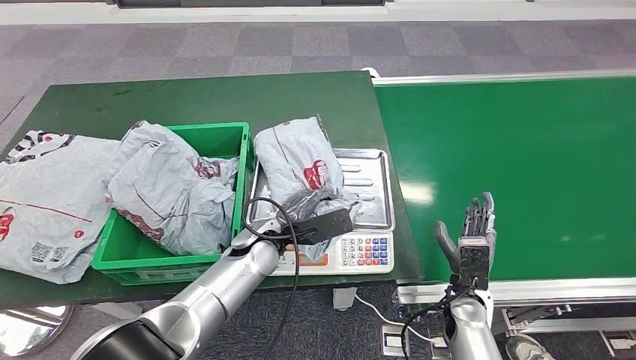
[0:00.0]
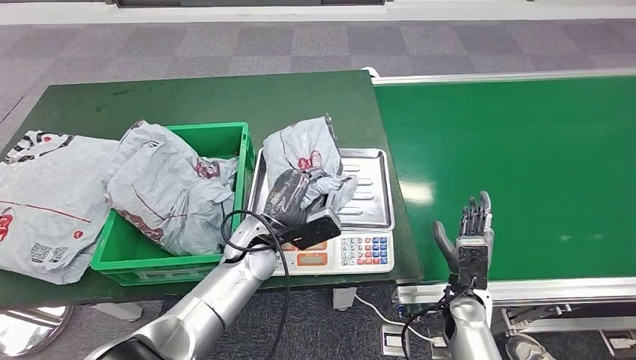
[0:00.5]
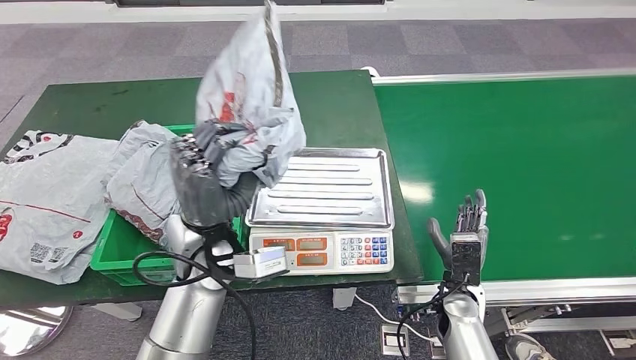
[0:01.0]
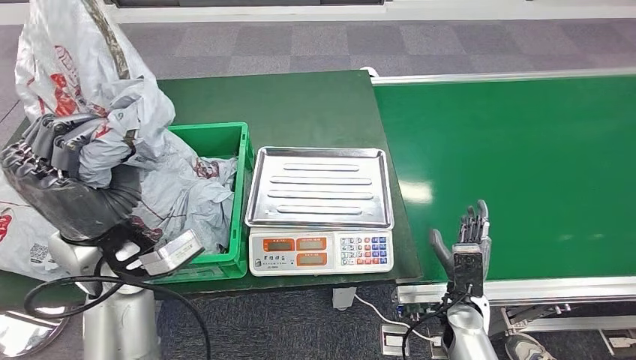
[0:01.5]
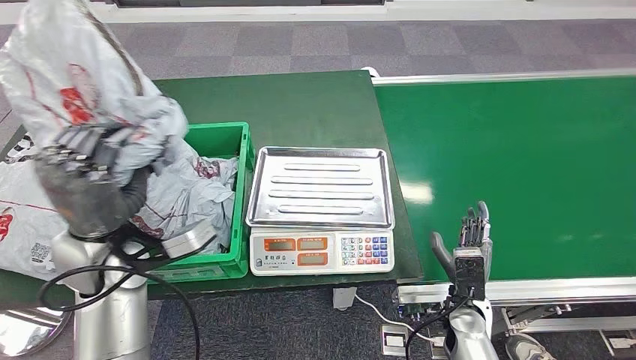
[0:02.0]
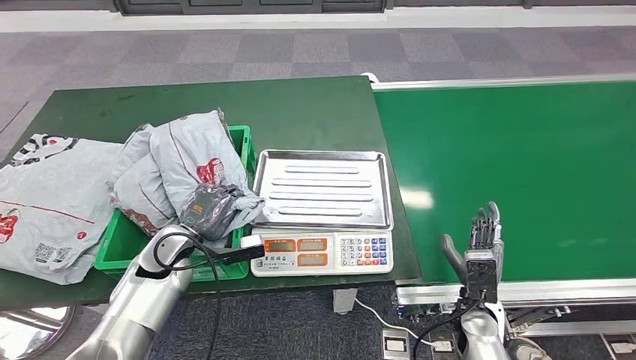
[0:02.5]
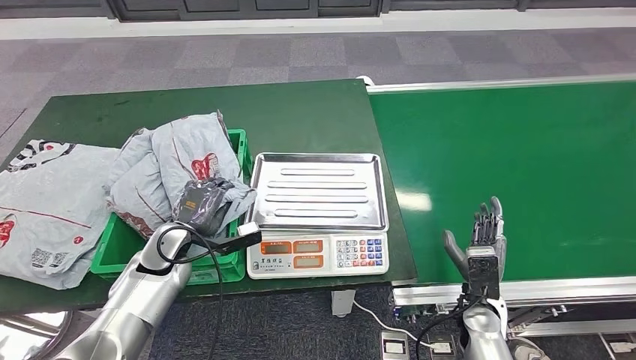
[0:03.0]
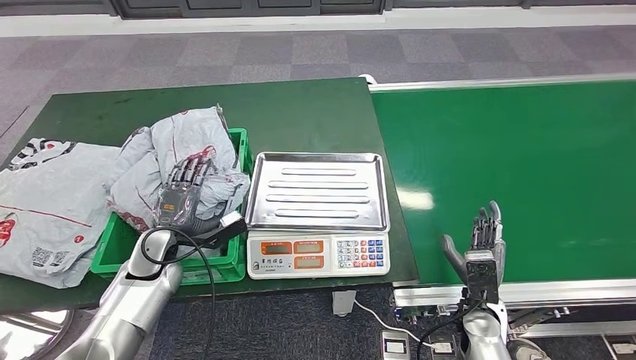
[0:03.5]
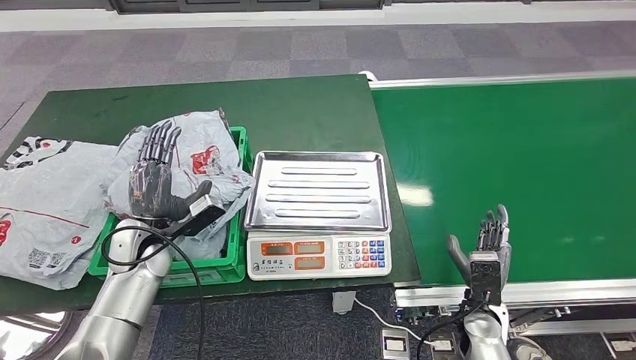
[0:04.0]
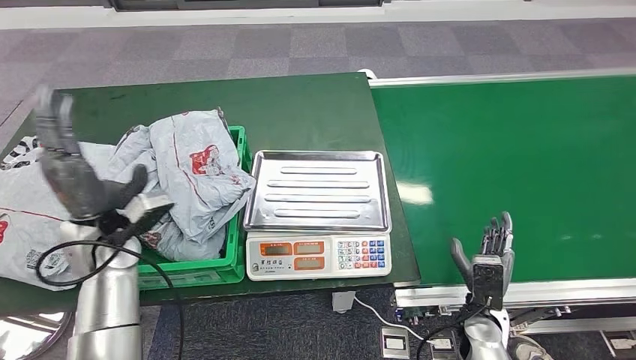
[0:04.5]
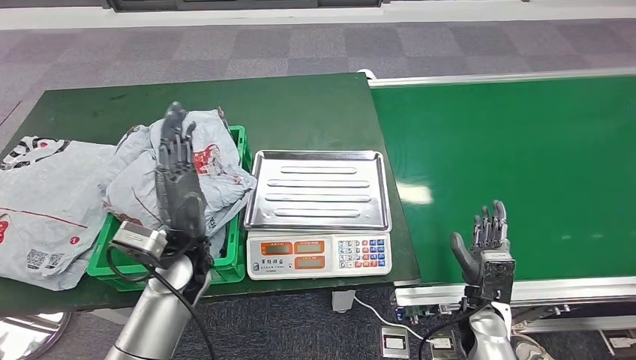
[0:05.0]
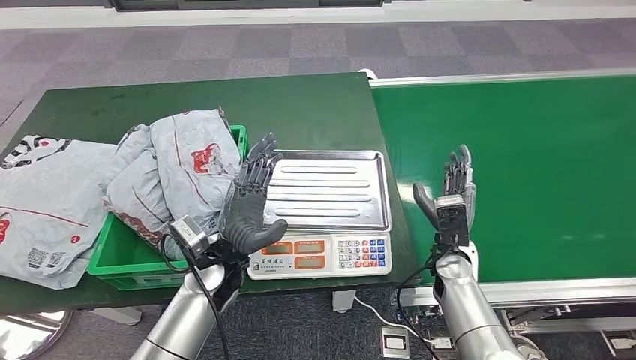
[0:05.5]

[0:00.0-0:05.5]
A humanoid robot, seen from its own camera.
Step, 0:02.0 to 0:05.5: Place the parcel into the delivery box.
